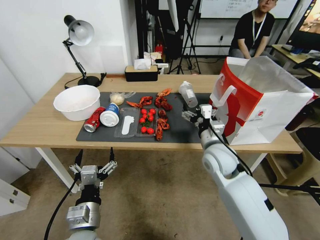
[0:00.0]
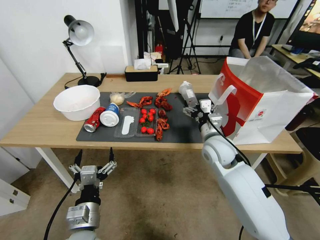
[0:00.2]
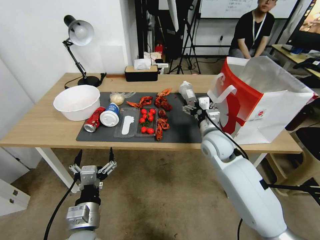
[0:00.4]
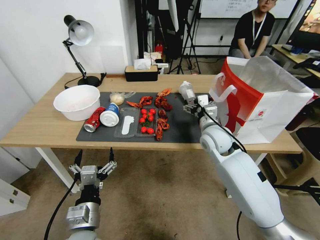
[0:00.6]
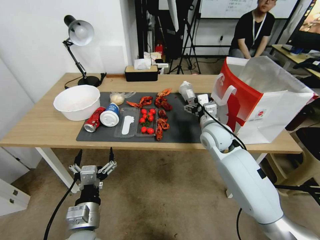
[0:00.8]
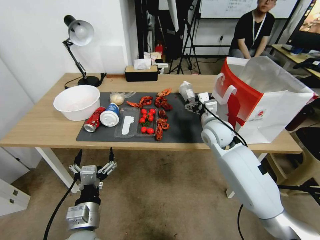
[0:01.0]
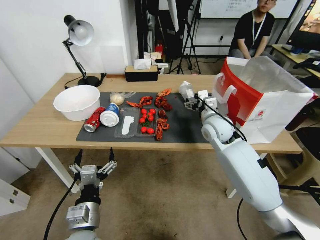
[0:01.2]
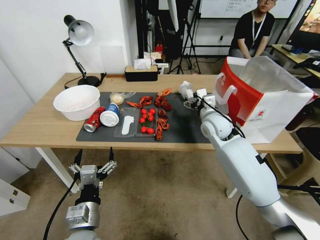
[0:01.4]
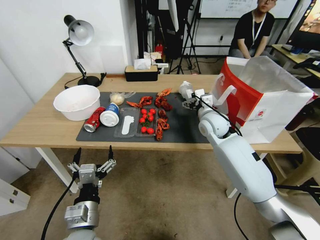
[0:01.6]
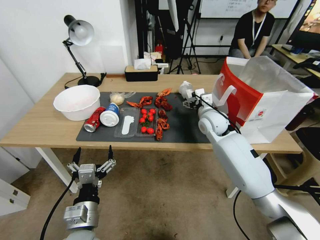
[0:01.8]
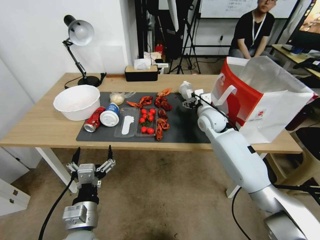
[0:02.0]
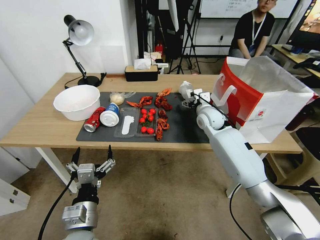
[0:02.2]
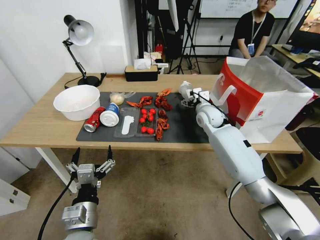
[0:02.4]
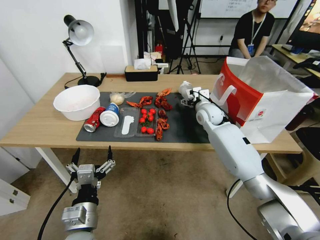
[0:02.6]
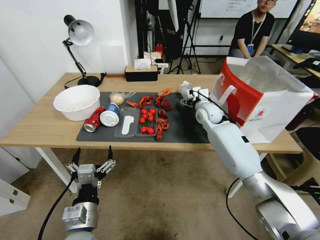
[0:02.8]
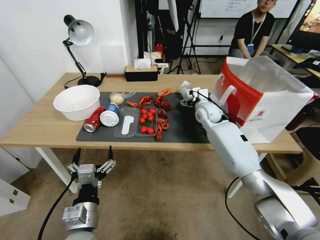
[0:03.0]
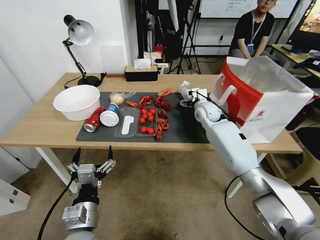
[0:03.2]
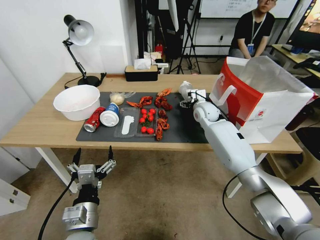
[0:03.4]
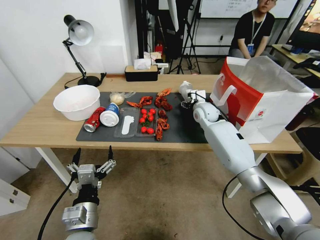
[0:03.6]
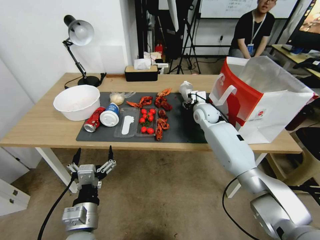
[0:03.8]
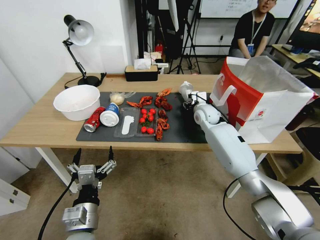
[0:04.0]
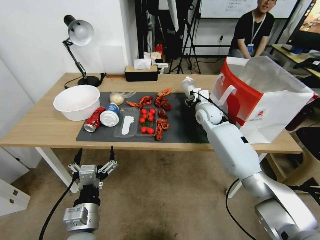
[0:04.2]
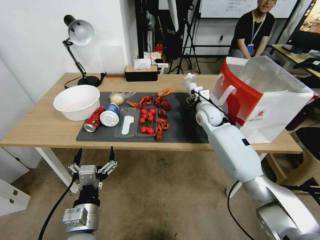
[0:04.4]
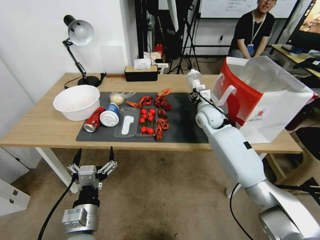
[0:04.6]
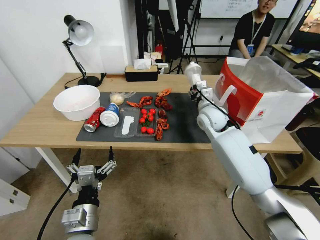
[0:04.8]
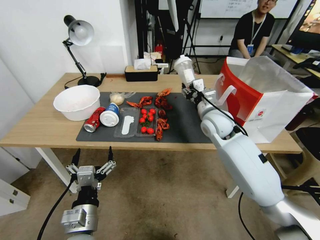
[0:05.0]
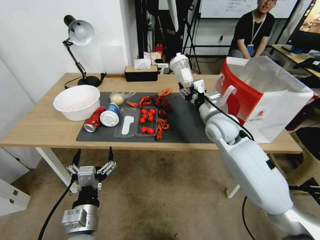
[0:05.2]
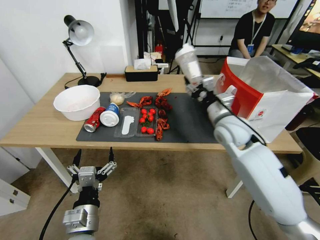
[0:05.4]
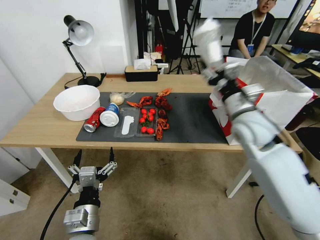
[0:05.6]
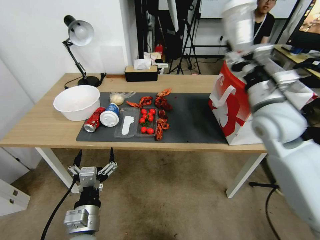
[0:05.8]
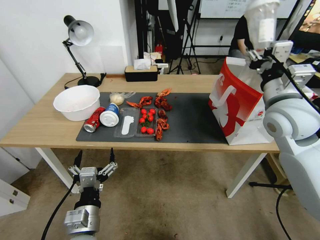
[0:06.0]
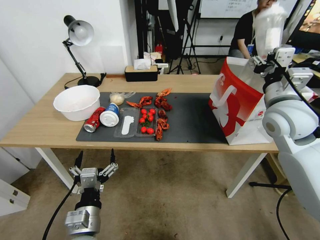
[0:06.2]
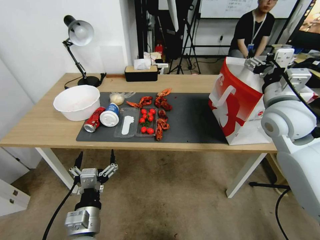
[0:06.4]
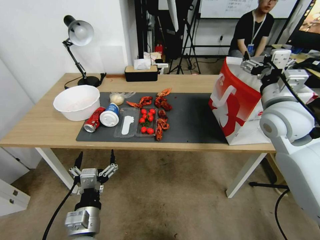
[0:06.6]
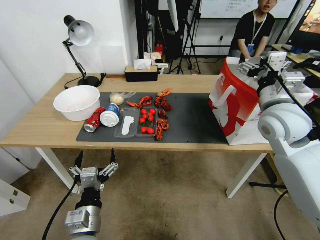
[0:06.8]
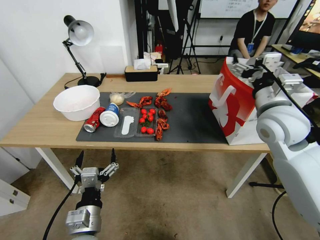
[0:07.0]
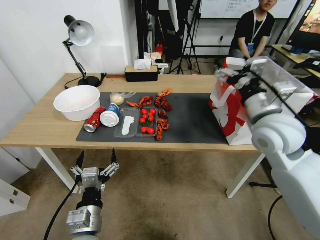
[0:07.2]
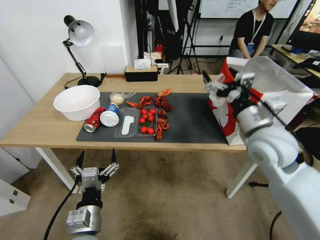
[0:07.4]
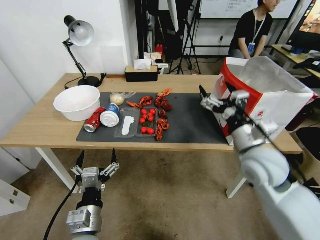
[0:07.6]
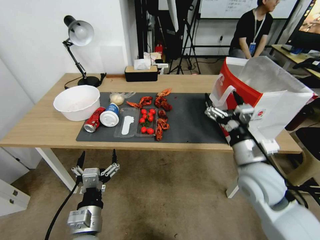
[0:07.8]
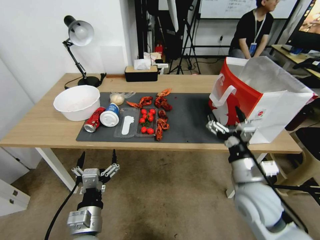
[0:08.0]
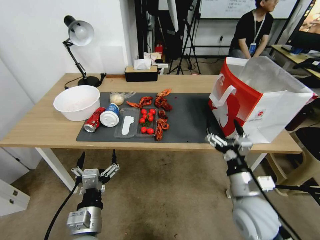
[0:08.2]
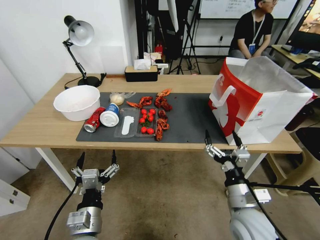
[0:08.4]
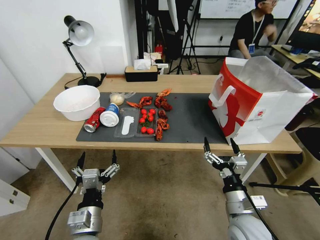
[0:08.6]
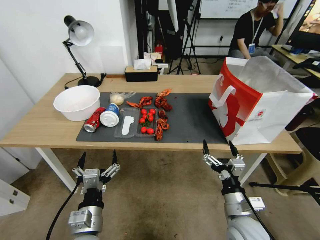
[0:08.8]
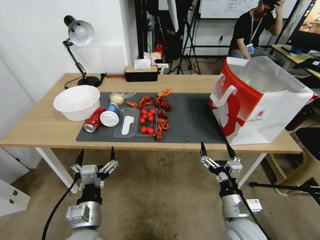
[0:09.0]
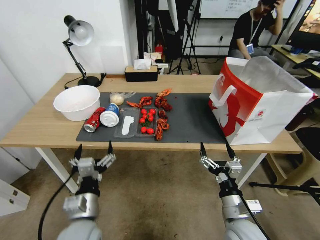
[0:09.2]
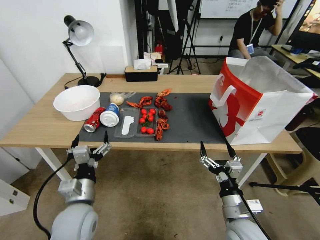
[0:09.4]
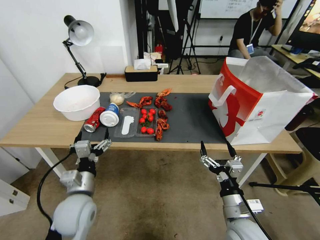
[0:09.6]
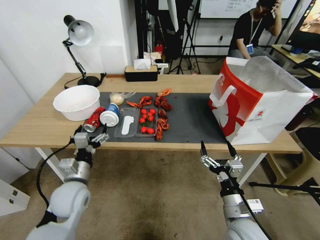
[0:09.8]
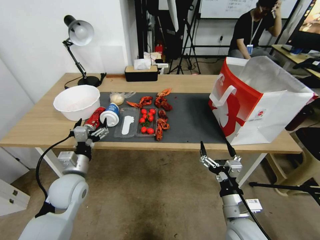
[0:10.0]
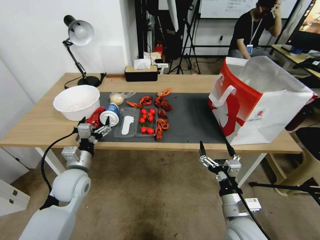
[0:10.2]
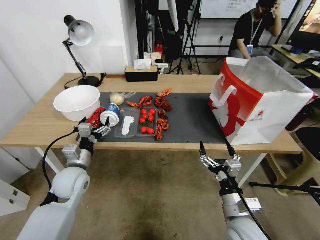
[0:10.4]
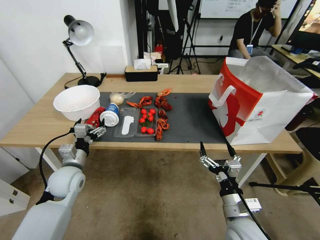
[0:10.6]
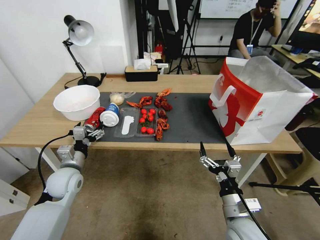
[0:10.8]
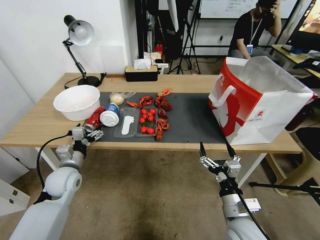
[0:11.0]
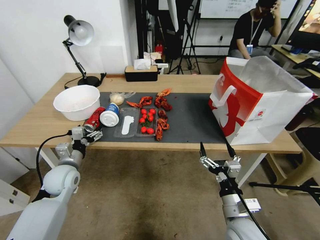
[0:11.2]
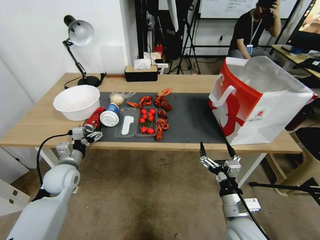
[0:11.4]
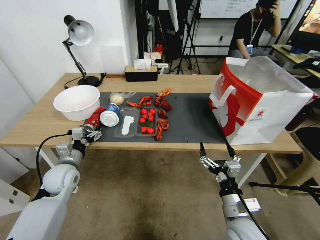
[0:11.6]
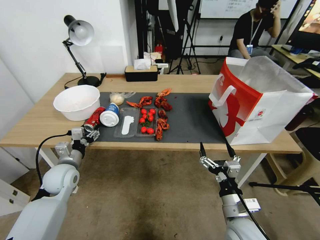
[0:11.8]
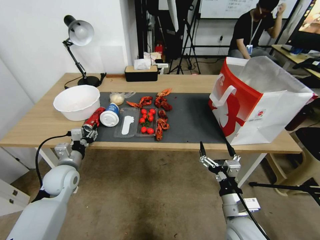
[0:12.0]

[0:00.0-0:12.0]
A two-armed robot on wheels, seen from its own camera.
0:00.0 to 0:01.6: The right gripper goes roughly 15 cm forward.
0:01.6 to 0:03.0: The right gripper is displaced forward by roughly 10 cm.
0:03.0 to 0:04.4: The right gripper closes.
0:04.4 to 0:06.0: The right gripper goes approximately 25 cm backward, upward and to the right.
0:06.0 to 0:07.6: The right gripper moves downward and backward, roughly 15 cm, and opens its fingers.
0:07.6 to 0:09.0: The right gripper shifts some 20 cm downward and backward.
0:09.0 to 0:10.4: The left gripper heads forward and to the left, covering roughly 20 cm.
0:10.4 to 0:12.0: The left gripper shifts by about 5 cm, and closes its fingers.

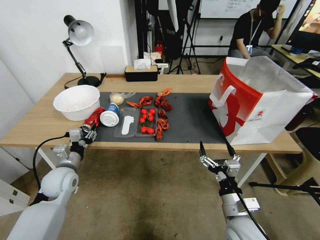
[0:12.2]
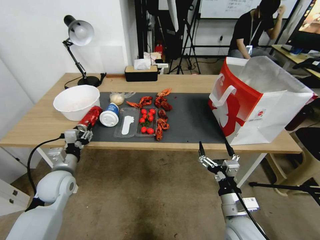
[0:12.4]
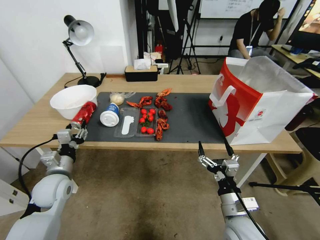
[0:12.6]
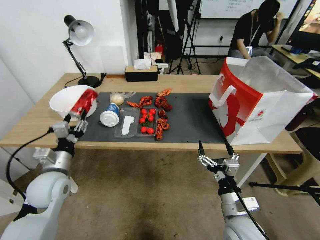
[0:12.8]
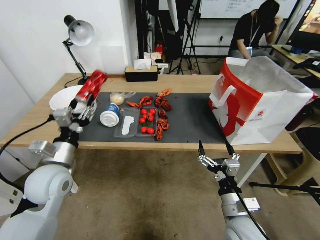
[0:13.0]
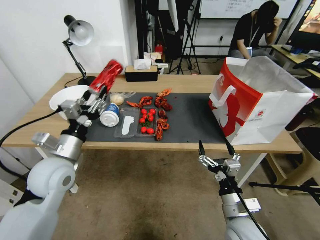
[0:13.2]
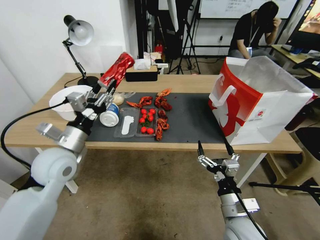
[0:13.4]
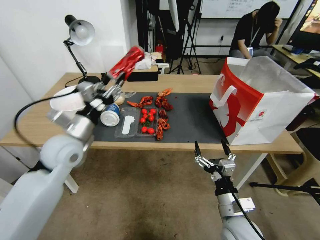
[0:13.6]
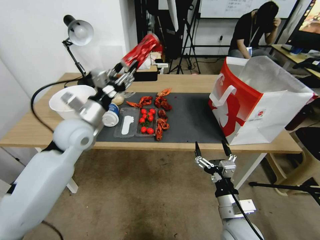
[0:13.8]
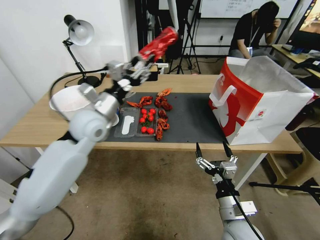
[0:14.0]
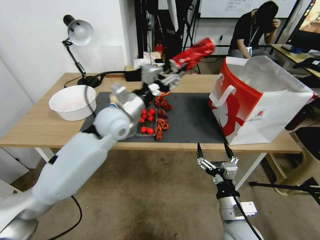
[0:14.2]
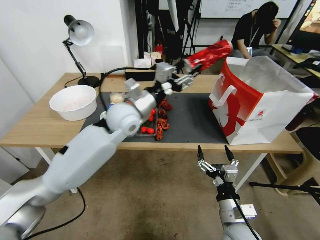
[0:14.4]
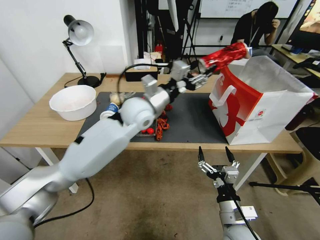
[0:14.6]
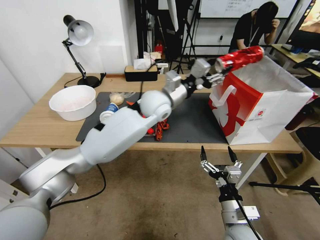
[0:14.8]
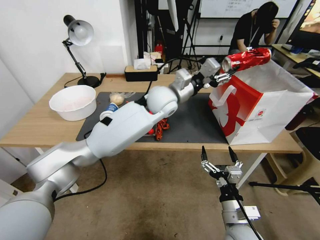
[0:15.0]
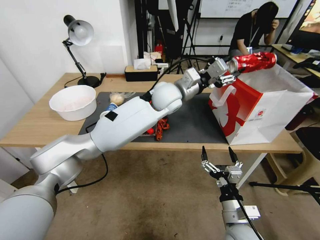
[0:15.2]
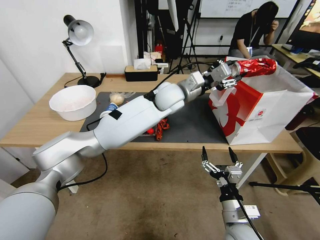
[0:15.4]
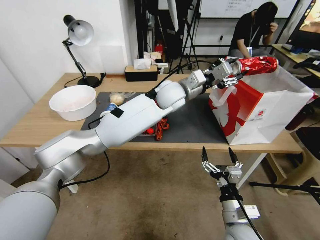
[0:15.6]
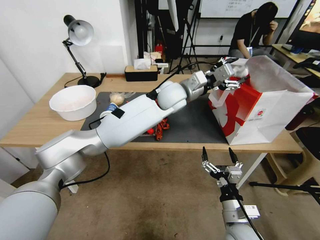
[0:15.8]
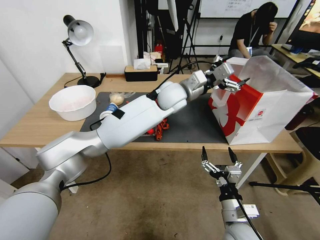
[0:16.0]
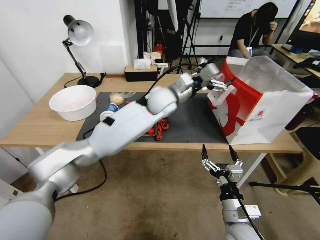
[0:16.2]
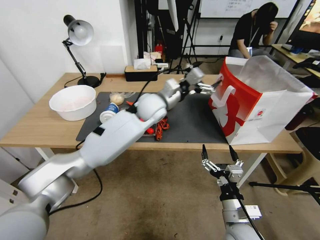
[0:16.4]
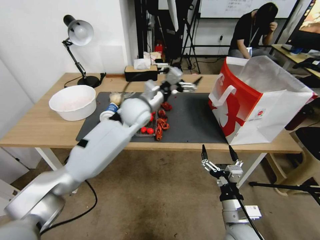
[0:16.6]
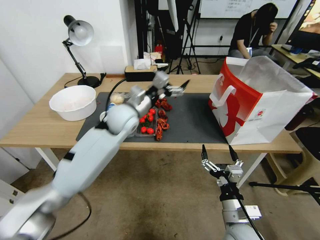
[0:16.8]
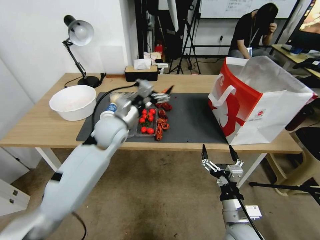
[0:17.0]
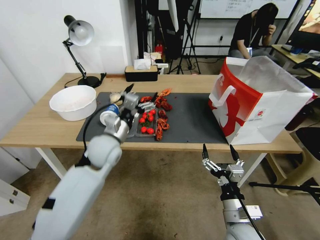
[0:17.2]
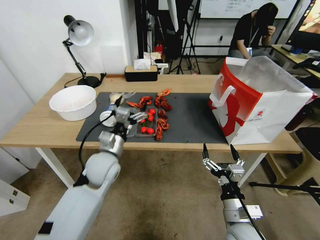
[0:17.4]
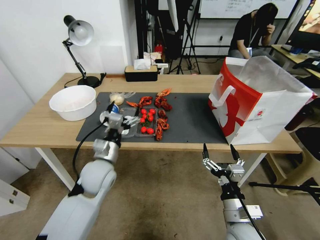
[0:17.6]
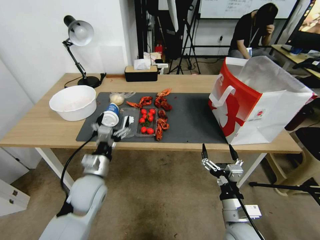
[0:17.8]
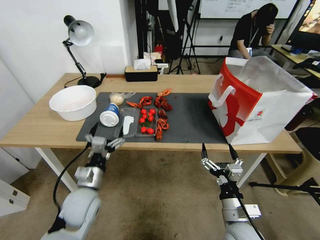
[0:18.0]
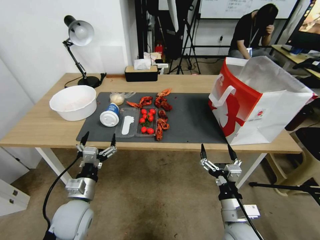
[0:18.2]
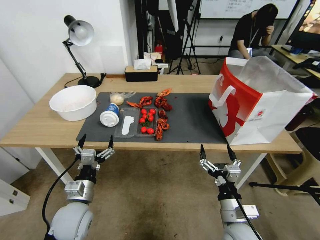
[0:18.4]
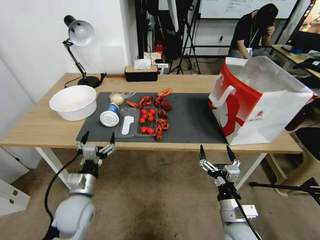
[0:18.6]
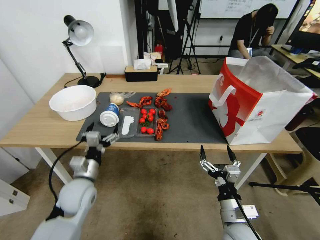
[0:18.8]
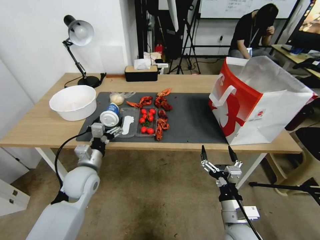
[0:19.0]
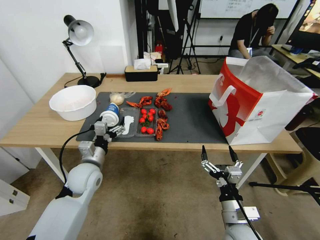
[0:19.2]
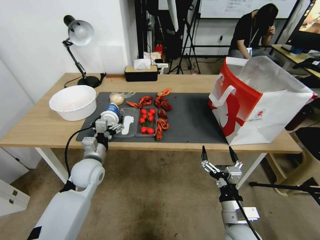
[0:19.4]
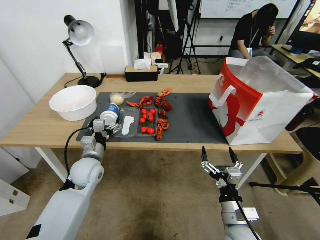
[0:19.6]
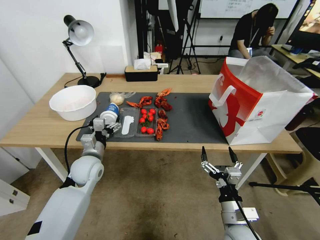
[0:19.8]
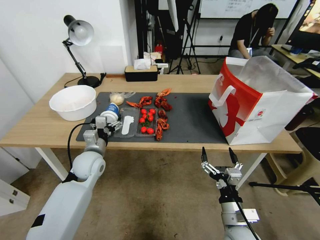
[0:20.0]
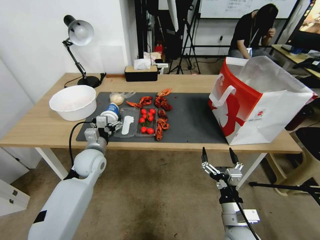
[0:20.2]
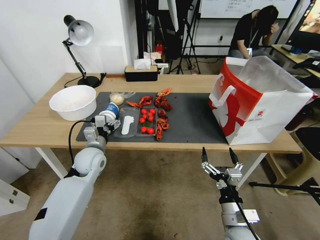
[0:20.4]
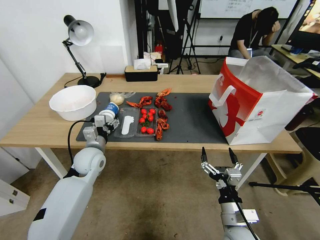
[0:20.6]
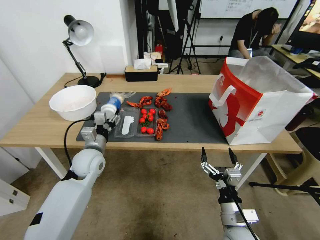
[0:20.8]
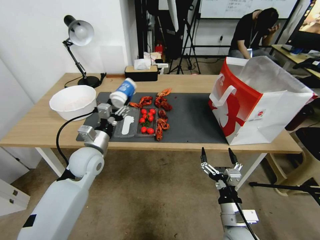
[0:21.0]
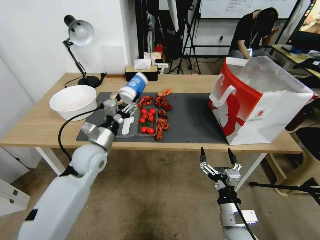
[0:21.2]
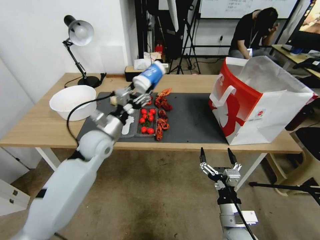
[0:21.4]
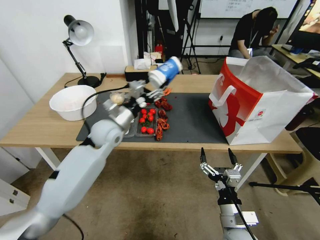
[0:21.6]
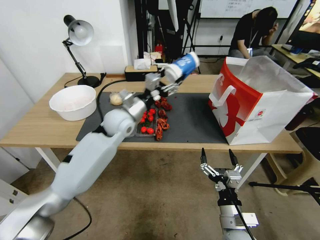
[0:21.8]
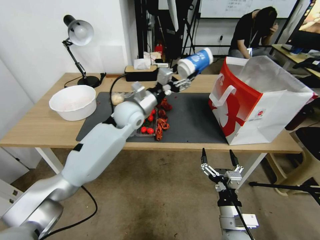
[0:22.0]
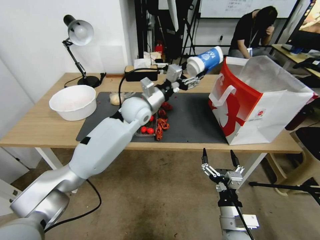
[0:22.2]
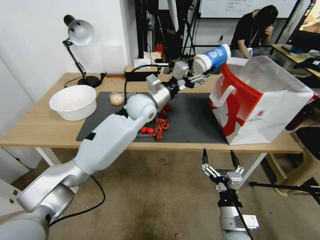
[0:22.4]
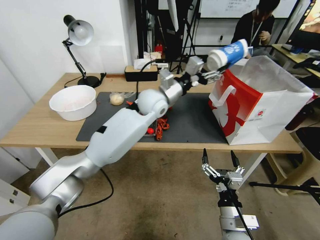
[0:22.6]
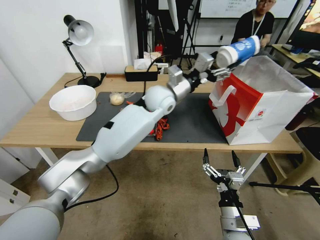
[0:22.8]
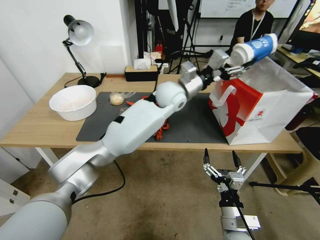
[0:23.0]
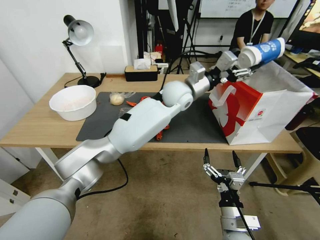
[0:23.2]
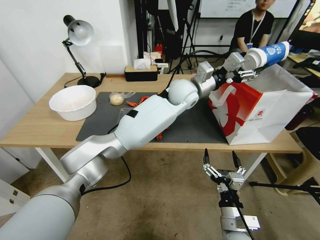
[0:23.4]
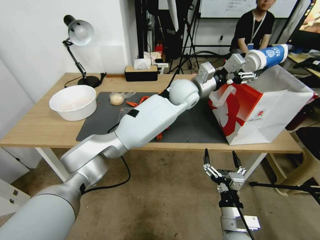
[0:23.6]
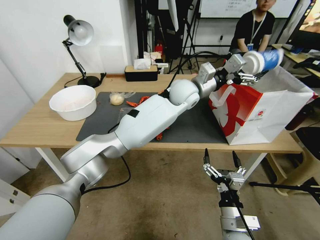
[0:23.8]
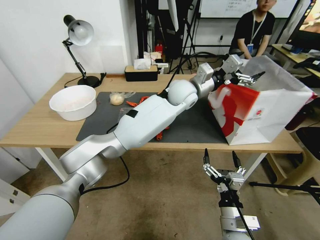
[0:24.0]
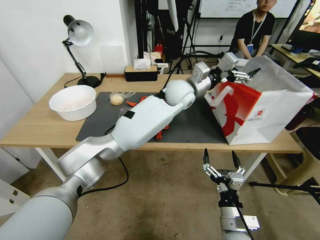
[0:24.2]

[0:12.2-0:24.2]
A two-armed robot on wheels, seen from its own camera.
0:12.2 to 0:13.8: The left gripper heads upward and to the right, covering some 20 cm.
0:13.8 to 0:15.2: The left gripper heads to the right and forward, covering roughly 25 cm.
0:15.2 to 0:16.6: The left gripper shifts some 10 cm to the left, and opens.
0:16.6 to 0:18.2: The left gripper heads backward, downward and to the left, covering some 35 cm.
0:18.2 to 0:19.8: The left gripper shifts about 10 cm forward.
0:19.8 to 0:21.2: The left gripper heads upward, covering some 5 cm, and closes up.
0:21.2 to 0:22.6: The left gripper heads to the right, forward and upward, covering about 25 cm.
0:22.6 to 0:24.2: The left gripper heads to the right, covering approximately 10 cm, and opens its fingers.
